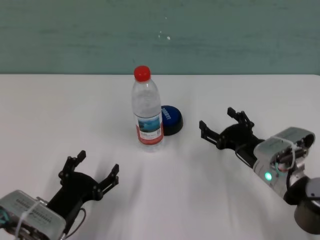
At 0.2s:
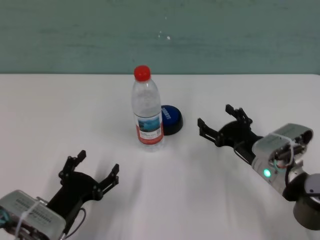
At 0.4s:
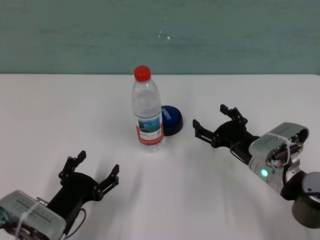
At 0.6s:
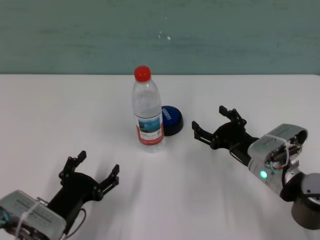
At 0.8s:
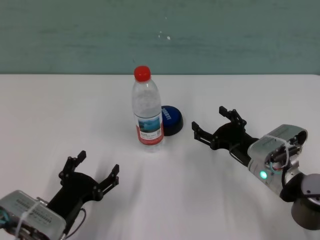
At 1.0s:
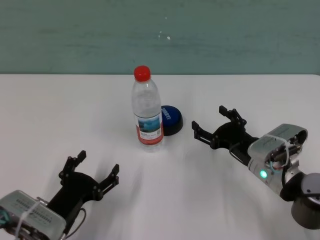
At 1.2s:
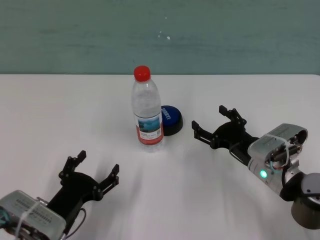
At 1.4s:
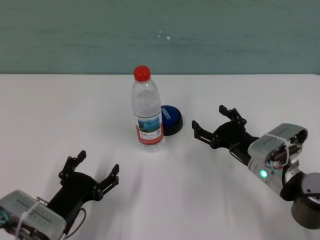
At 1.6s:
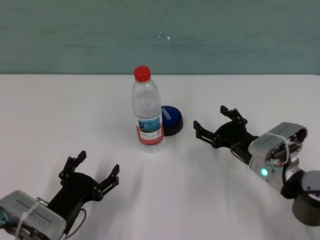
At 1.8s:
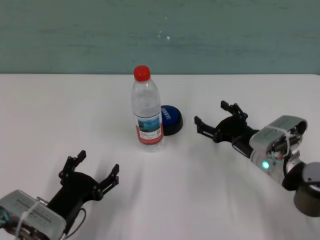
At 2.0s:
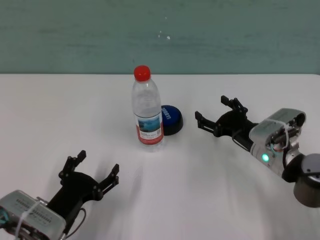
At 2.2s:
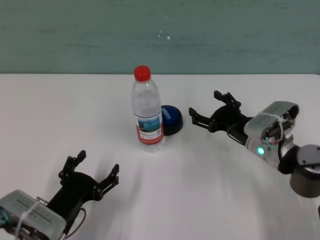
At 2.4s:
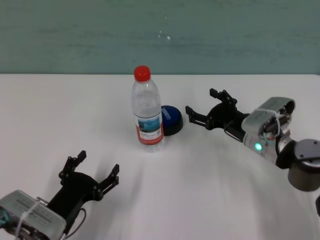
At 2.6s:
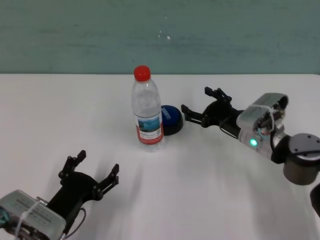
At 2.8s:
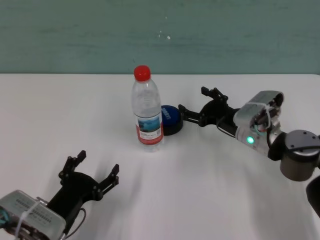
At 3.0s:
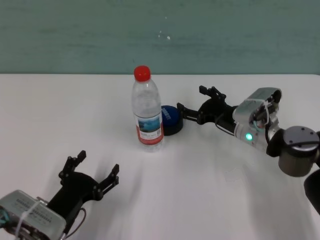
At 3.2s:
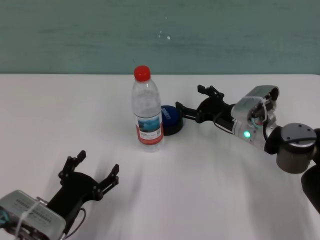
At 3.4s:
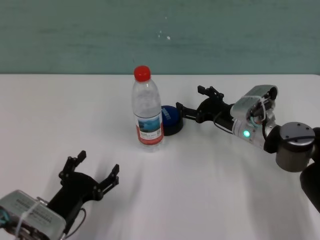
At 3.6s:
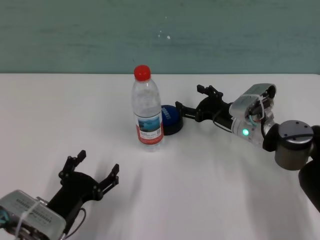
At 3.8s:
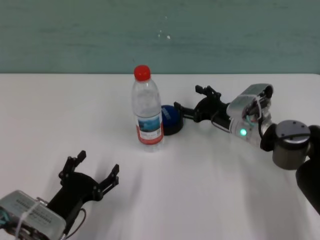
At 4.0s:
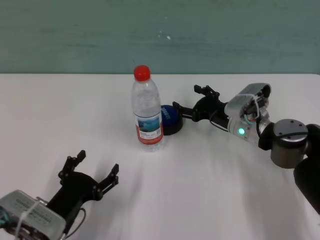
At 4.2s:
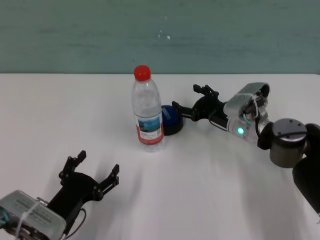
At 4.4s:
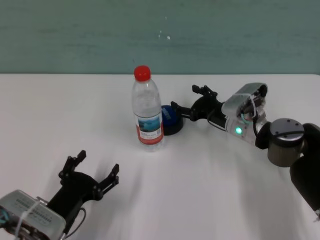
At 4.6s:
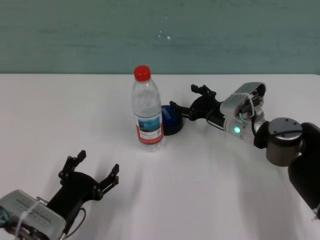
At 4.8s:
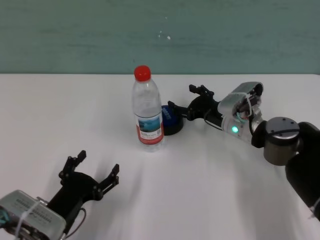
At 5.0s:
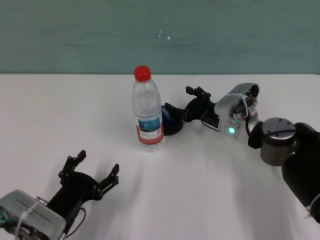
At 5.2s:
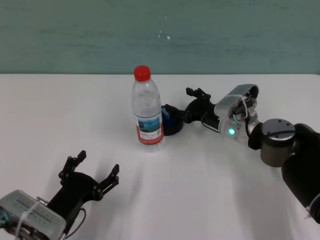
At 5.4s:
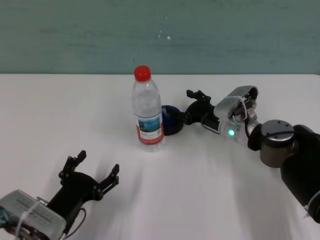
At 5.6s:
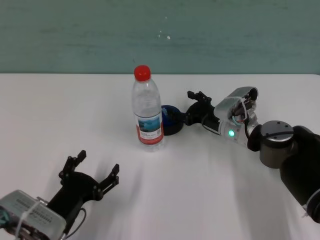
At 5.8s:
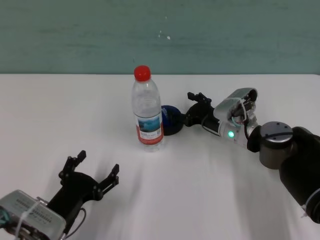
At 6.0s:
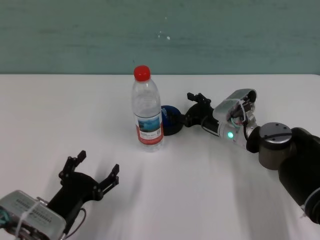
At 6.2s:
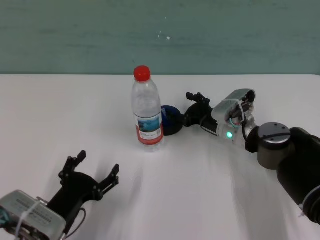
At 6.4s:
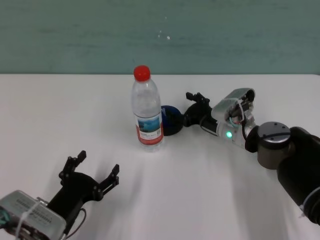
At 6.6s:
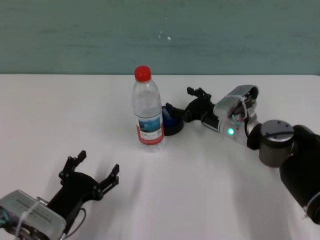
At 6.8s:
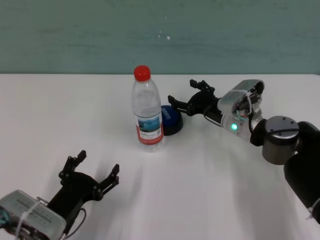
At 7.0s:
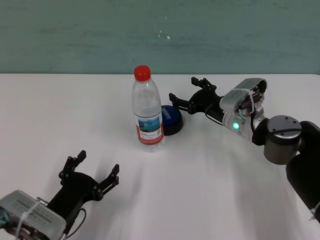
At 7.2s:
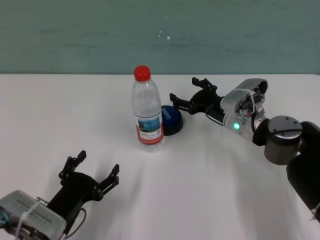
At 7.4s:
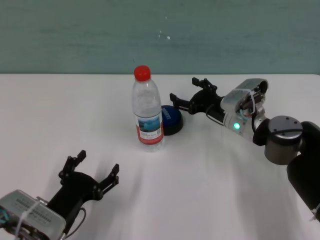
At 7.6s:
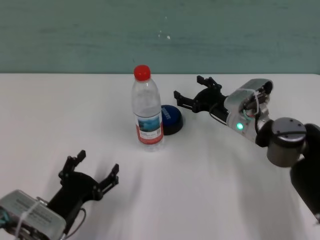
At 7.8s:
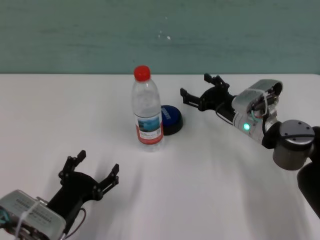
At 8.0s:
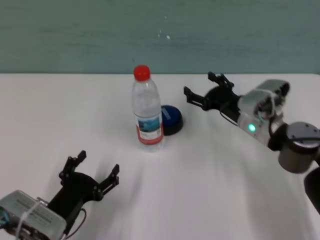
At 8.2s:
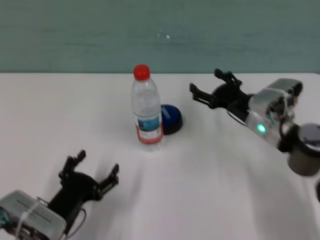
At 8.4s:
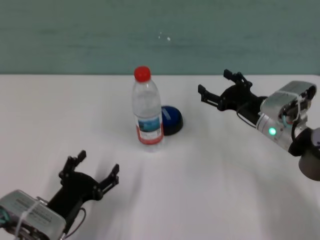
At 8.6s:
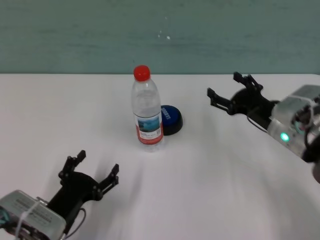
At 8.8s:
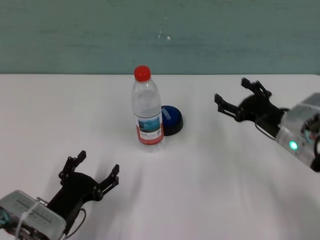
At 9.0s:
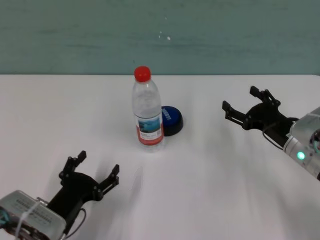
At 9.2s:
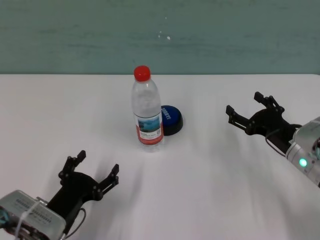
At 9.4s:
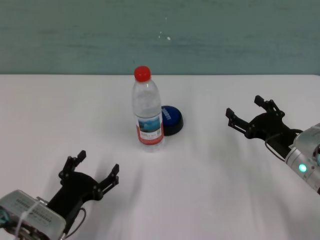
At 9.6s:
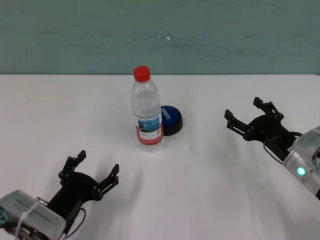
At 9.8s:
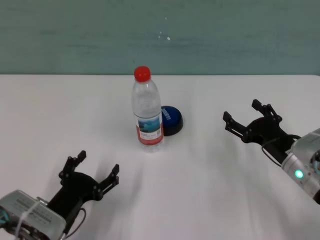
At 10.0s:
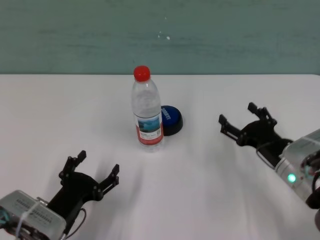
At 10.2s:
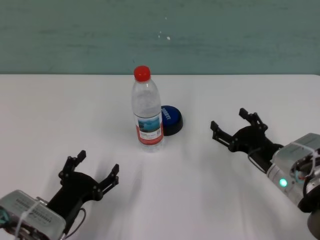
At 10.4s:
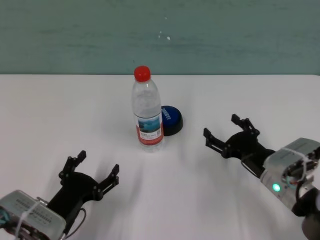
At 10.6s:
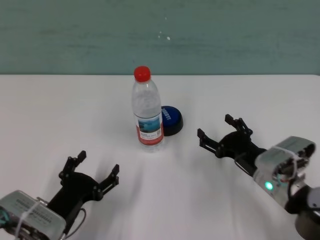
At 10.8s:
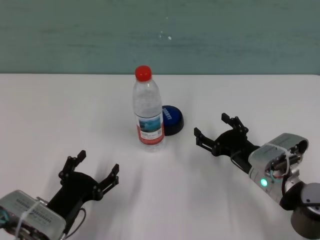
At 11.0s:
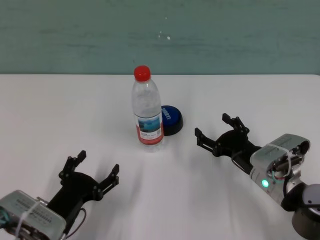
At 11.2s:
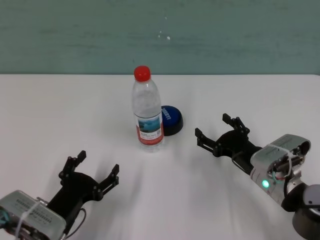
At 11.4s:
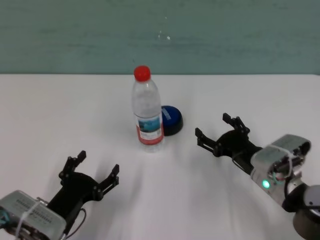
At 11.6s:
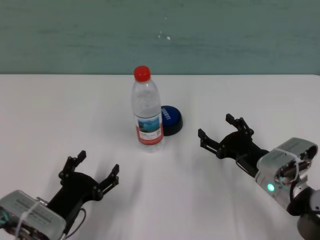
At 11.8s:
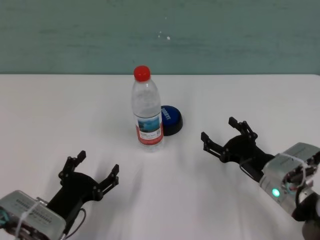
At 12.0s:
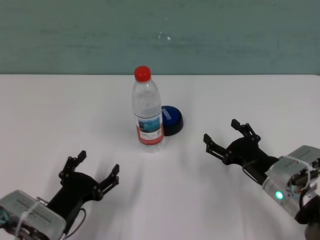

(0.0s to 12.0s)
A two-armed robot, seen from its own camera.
Task of the whole recording: after avoiding the water bottle on the table, press the button.
Step, 0.0s - 6.6s: Press the button blocked by the bottle with right gripper.

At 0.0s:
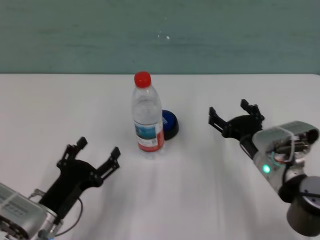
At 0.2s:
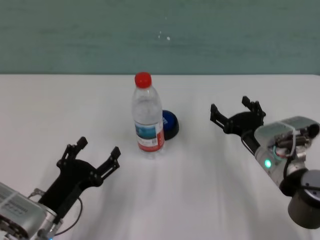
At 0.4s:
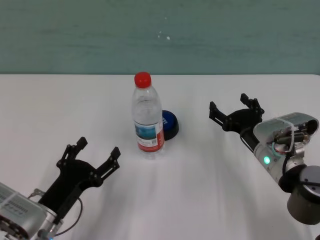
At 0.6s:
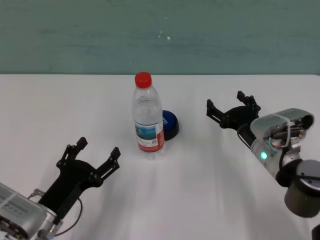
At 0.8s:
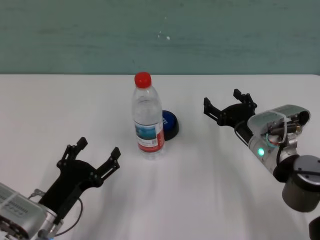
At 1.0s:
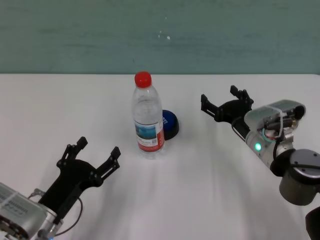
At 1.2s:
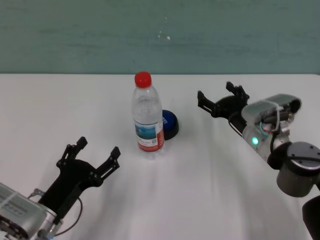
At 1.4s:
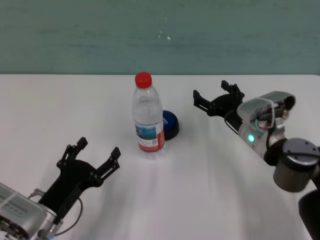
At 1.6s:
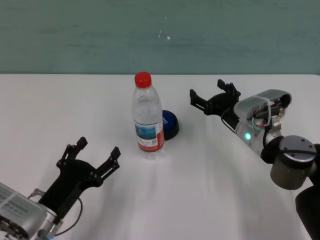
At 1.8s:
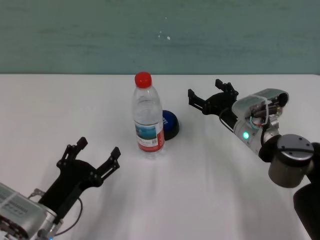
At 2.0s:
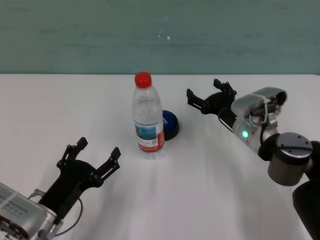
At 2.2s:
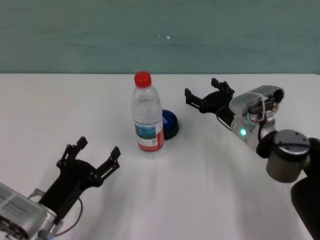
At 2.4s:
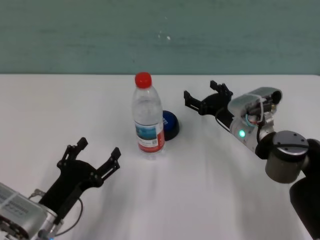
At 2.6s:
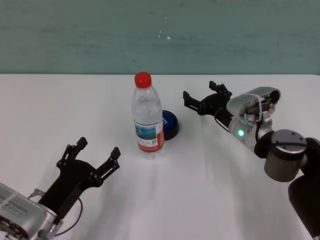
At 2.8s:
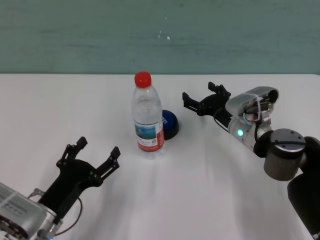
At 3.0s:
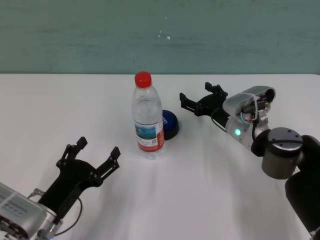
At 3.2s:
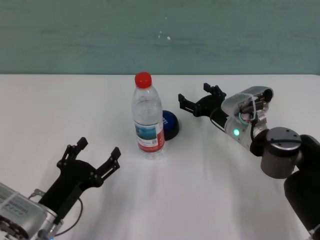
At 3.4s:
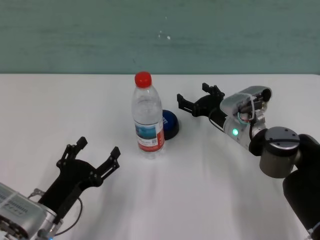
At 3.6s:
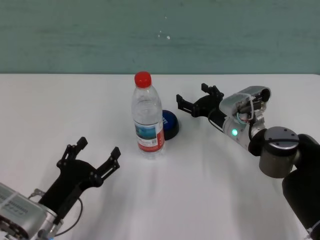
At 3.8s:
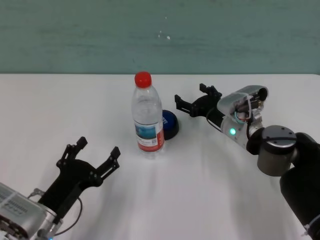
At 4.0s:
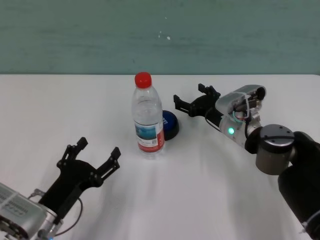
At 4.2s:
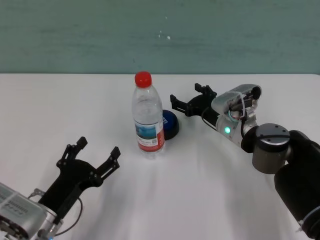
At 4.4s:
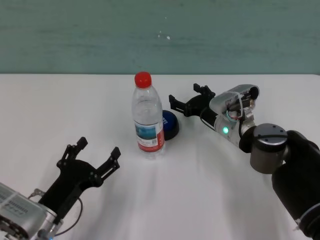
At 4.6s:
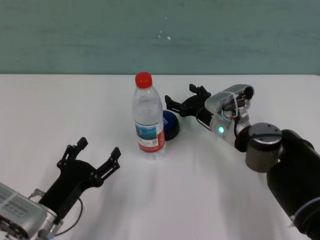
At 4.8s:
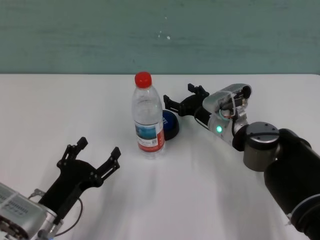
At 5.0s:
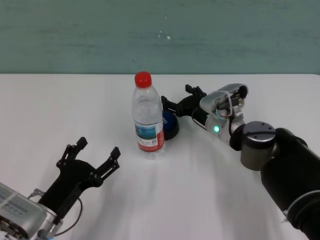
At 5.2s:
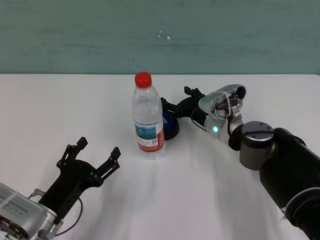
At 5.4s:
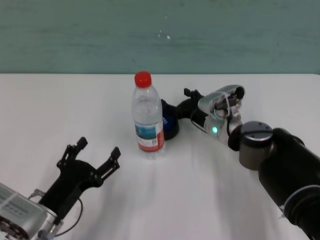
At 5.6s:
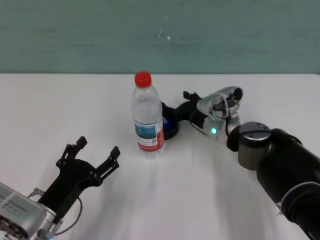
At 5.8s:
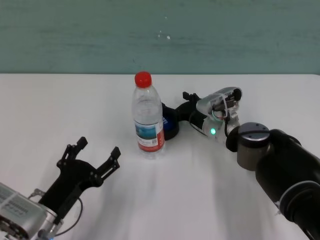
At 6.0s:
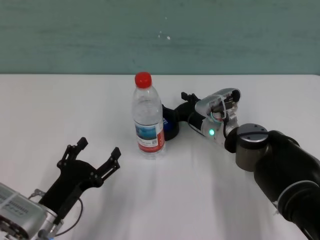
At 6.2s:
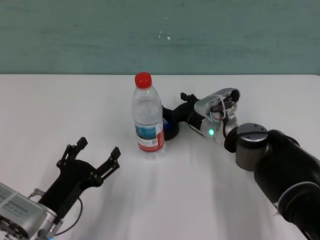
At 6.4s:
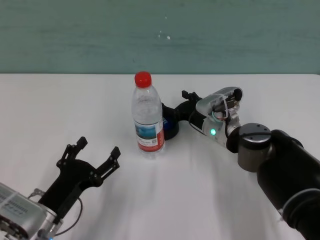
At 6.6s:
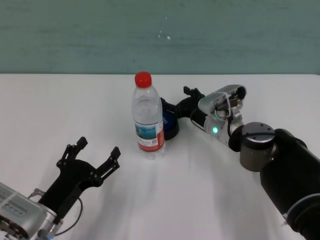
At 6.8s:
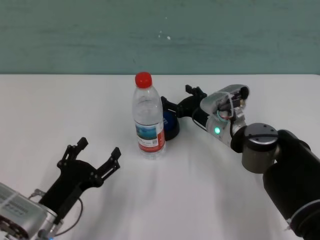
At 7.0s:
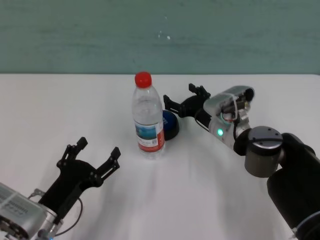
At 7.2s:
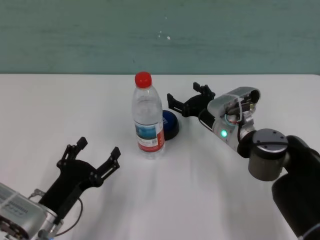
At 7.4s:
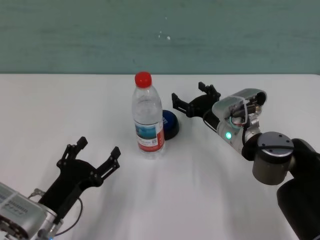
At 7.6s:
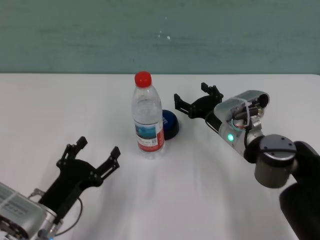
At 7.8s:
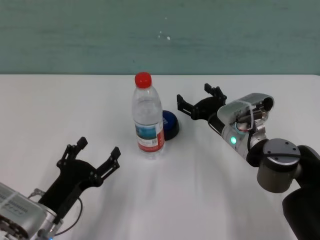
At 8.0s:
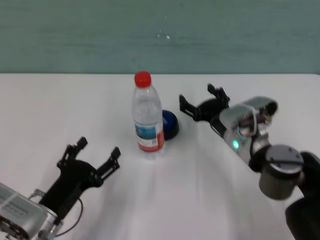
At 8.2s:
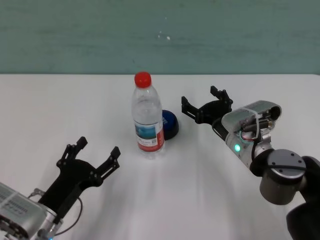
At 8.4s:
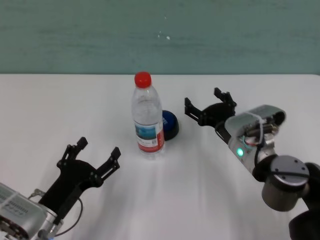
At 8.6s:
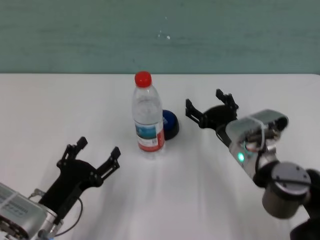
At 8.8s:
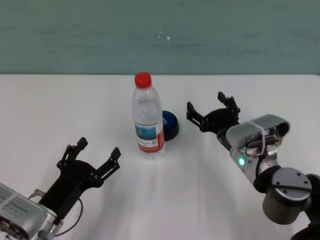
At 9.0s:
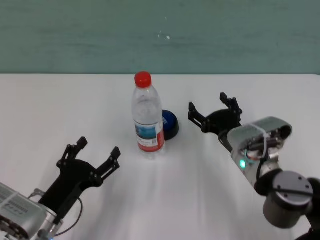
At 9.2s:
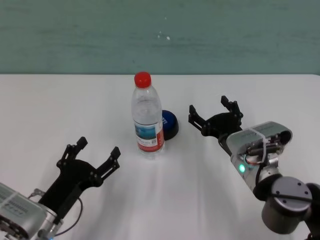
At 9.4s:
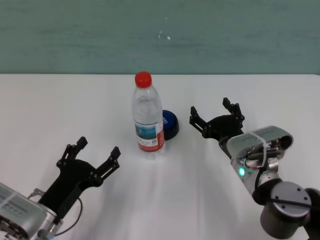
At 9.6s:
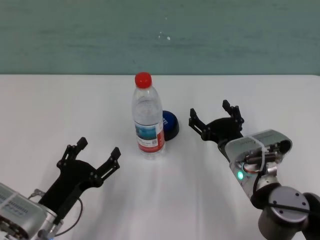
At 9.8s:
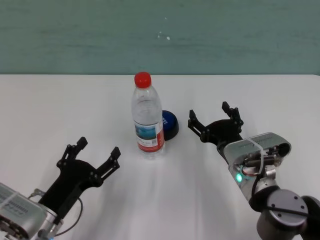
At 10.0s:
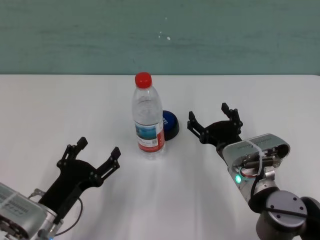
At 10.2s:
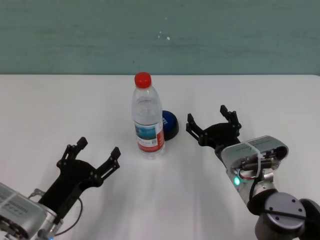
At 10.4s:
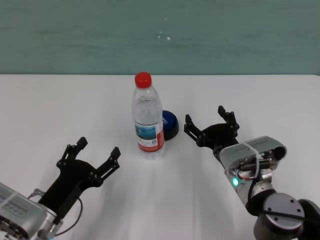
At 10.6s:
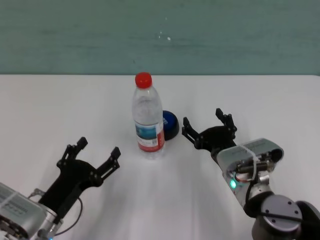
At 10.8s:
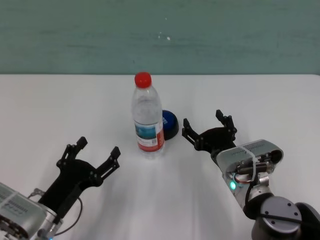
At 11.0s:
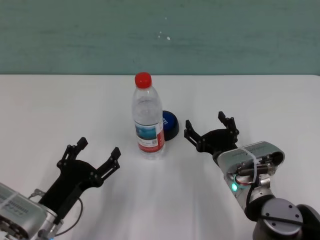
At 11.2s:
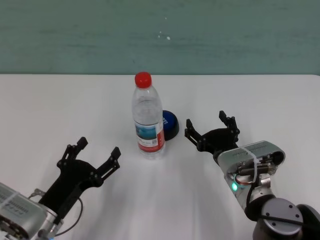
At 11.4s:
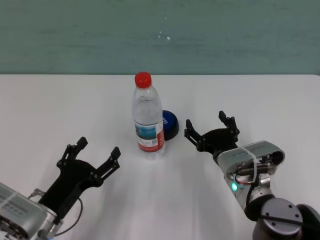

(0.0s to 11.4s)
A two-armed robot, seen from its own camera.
Task of the whole recording: after avoiding the water bottle on the table, press the button.
Step, 0.0s - 6.4s: Press the button blocked by the bottle with right gripper.
